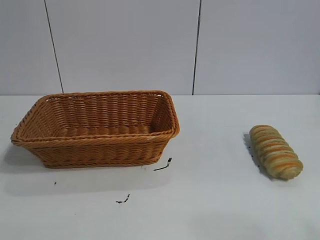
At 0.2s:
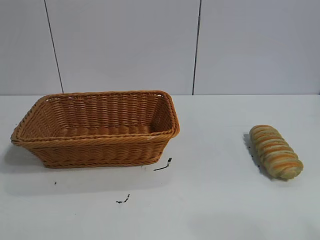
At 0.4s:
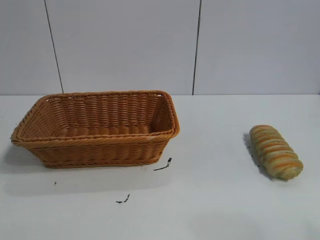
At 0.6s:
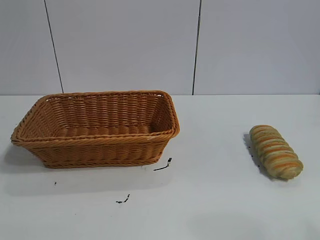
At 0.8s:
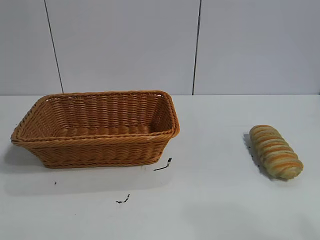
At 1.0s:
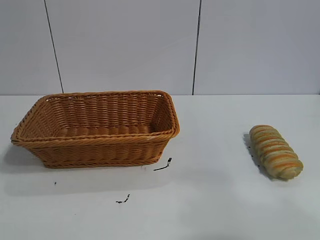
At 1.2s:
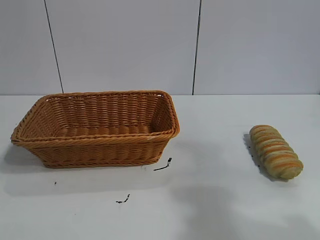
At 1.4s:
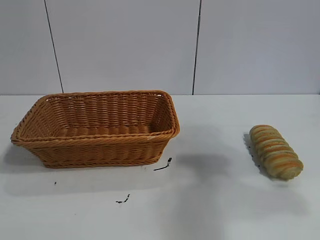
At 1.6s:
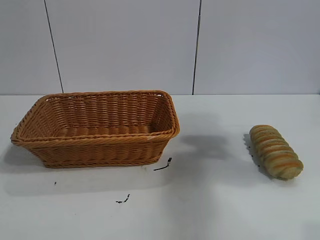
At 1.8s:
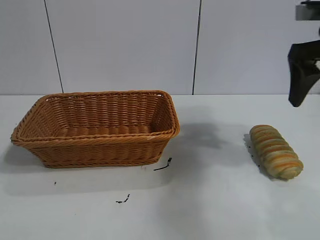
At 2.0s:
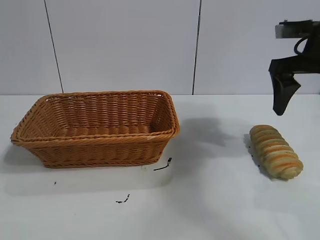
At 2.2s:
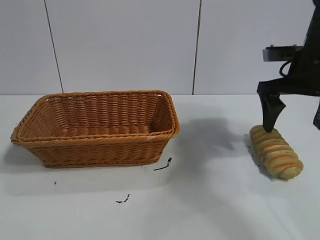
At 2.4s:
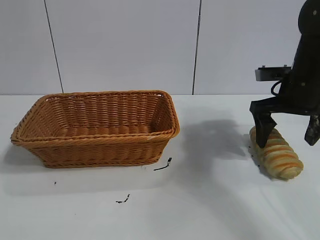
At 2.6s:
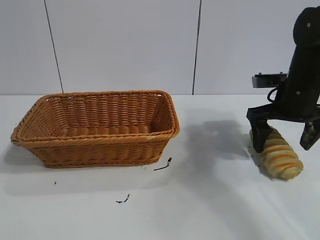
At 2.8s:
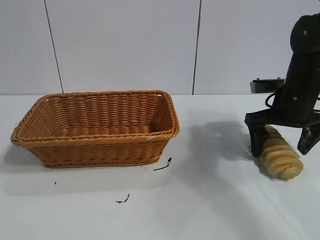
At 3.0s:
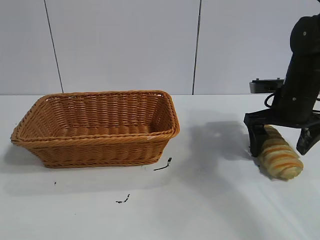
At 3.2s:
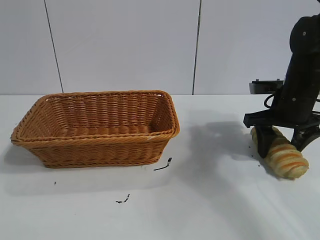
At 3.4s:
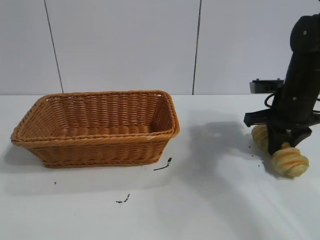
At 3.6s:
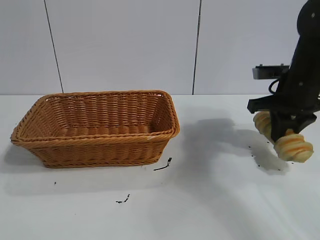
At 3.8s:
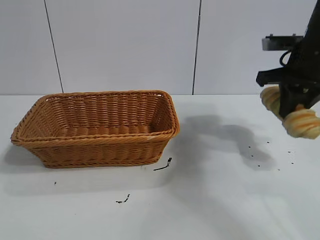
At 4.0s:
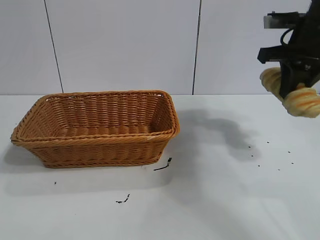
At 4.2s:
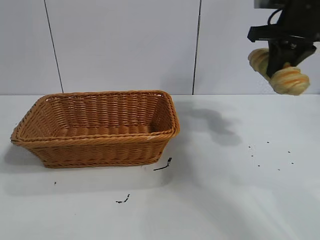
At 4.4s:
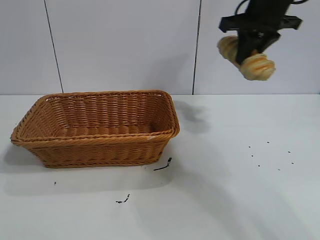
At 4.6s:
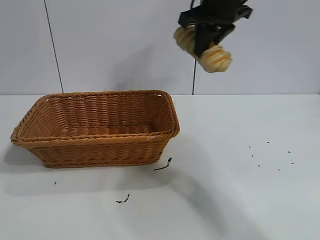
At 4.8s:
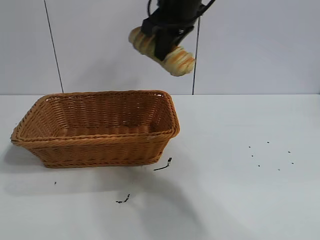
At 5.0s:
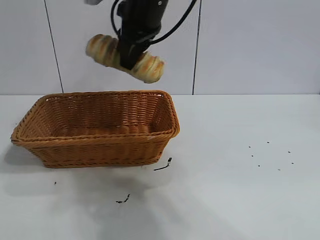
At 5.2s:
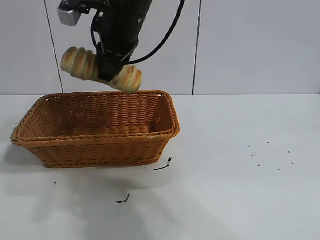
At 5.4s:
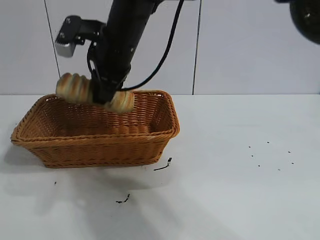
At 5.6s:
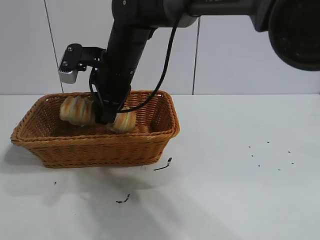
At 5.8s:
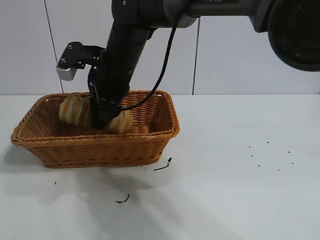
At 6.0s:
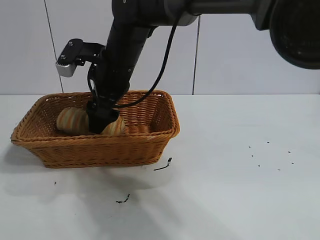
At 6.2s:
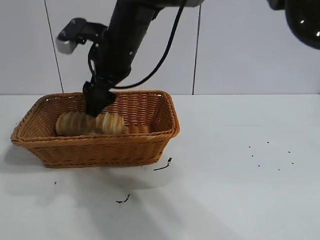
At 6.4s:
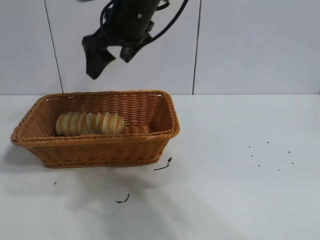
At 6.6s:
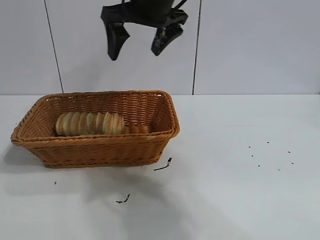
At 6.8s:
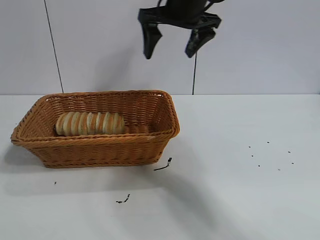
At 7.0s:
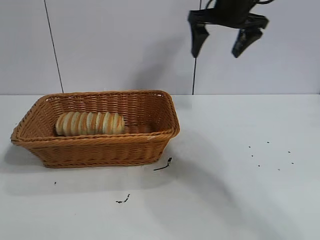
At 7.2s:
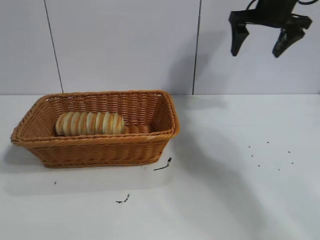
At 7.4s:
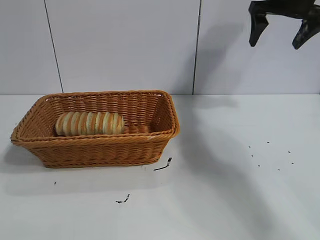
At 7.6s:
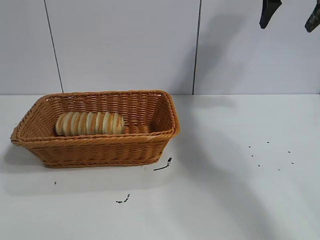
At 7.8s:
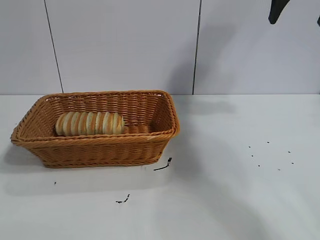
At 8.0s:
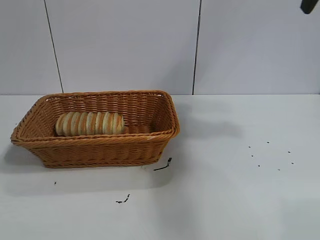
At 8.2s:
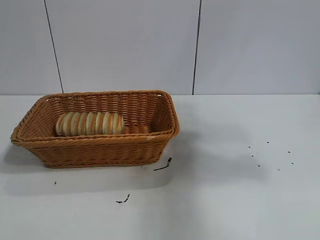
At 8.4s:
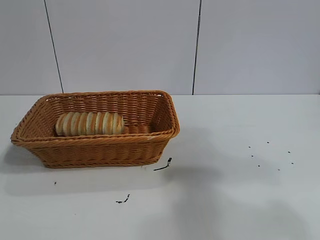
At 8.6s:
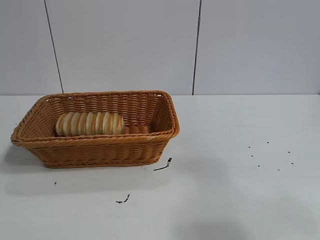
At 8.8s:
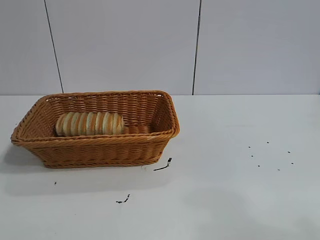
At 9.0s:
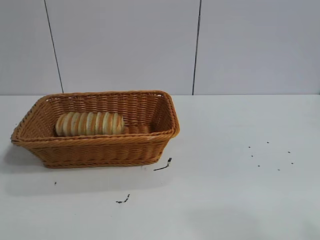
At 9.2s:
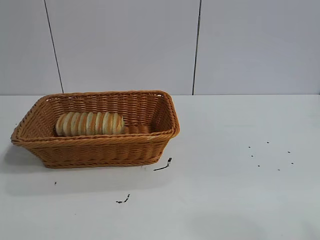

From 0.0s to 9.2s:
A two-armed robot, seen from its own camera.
Task of the whole recording: pick up the long bread and put it into the basket.
Step, from 1.8s to 3.4s: Grasp the long bread with right gripper.
Step, from 3.6s to 6.2s: Place the long bread in the basket with right gripper.
